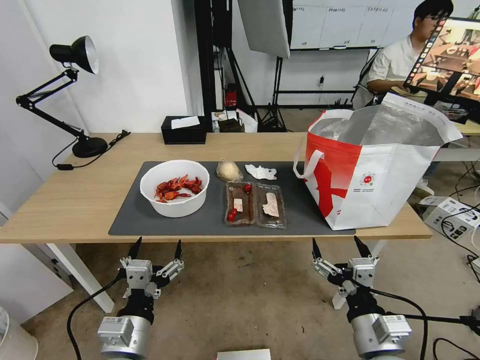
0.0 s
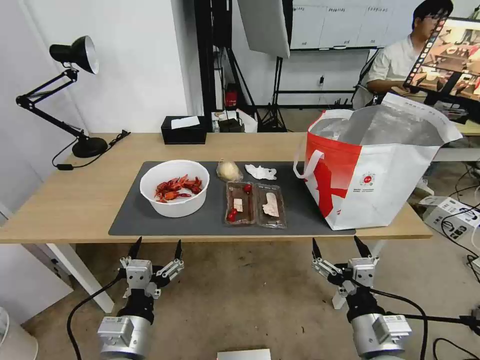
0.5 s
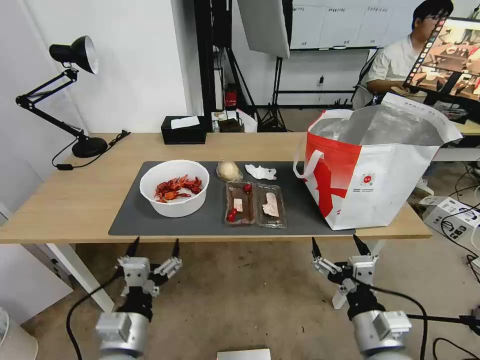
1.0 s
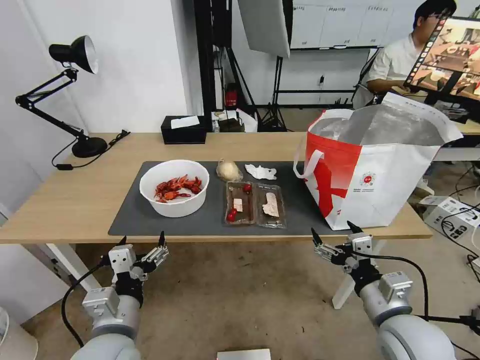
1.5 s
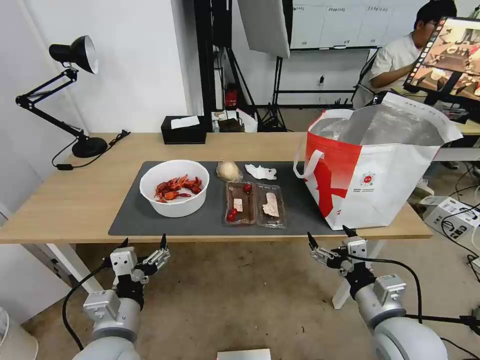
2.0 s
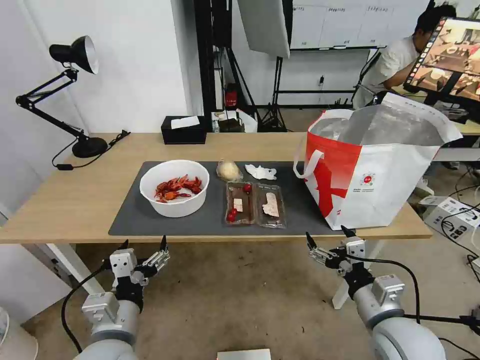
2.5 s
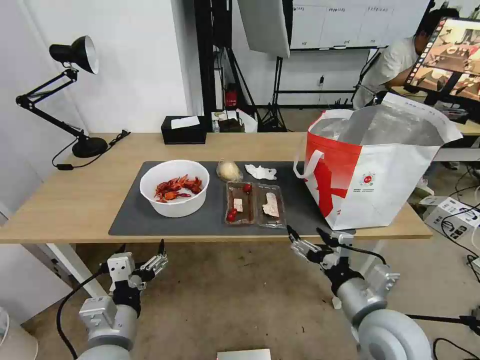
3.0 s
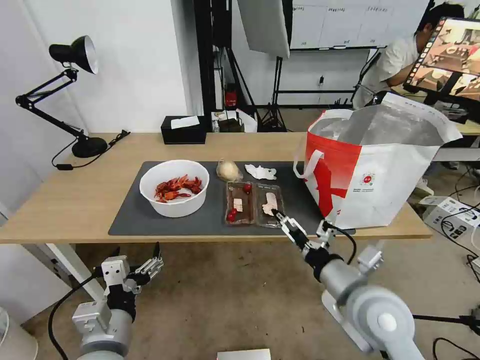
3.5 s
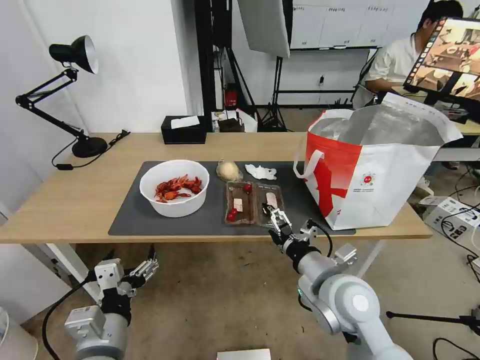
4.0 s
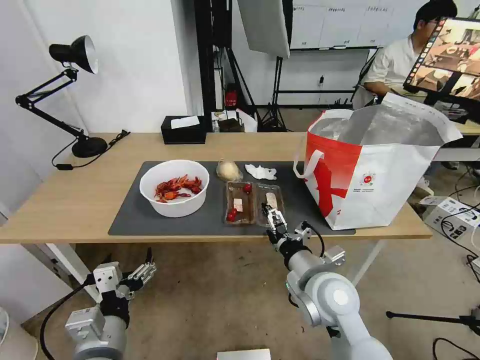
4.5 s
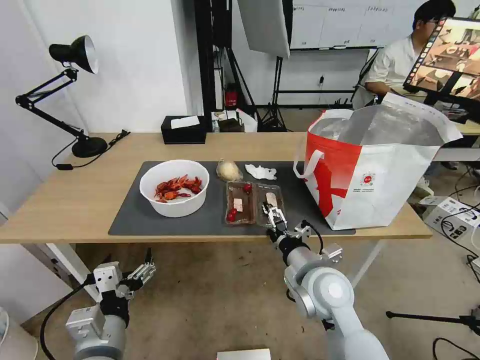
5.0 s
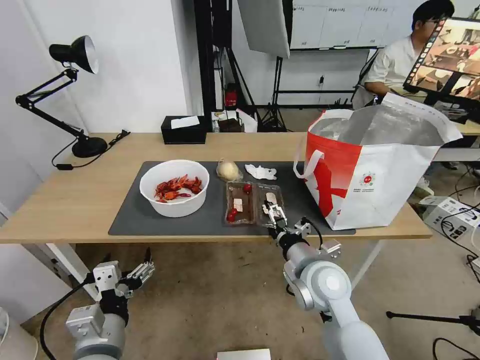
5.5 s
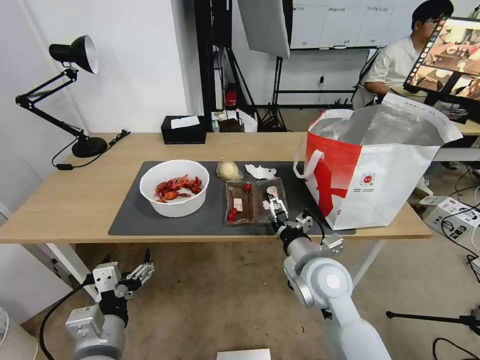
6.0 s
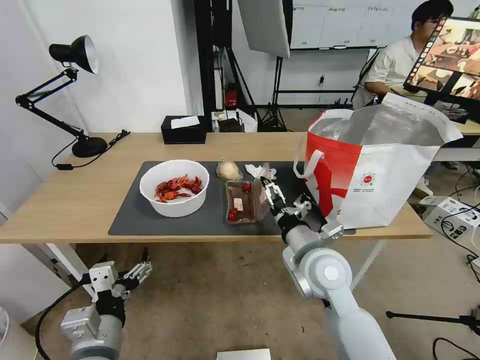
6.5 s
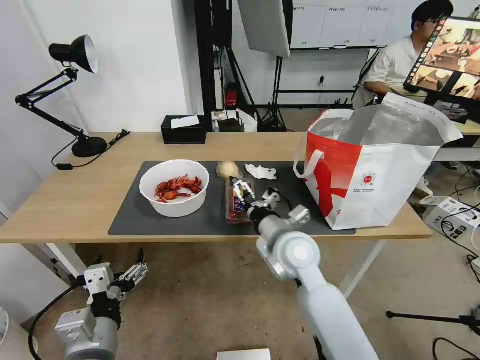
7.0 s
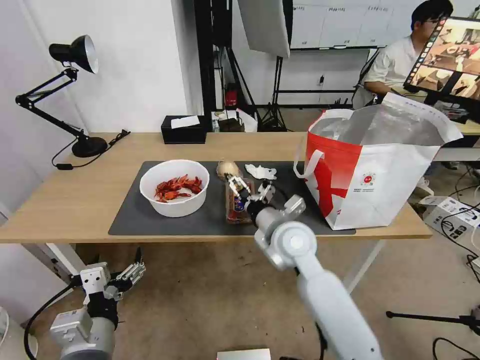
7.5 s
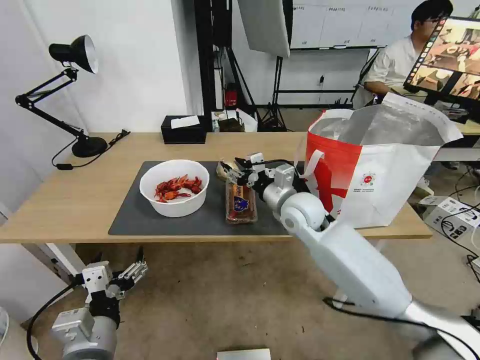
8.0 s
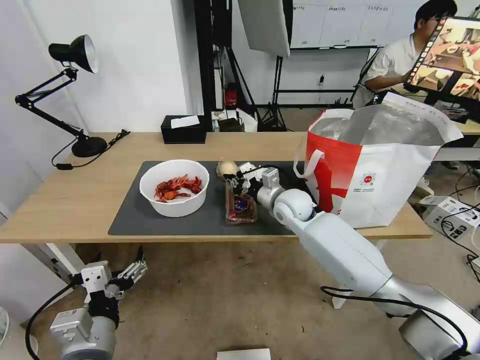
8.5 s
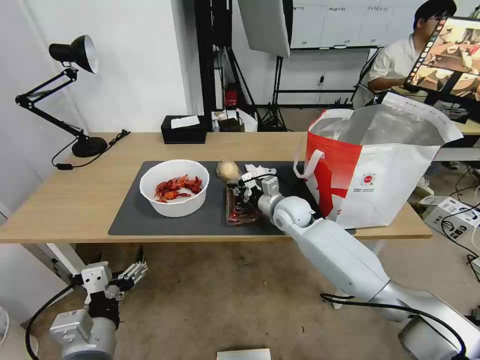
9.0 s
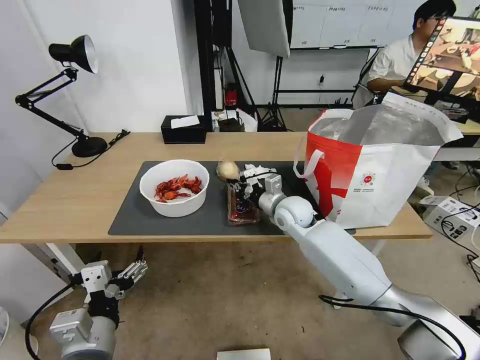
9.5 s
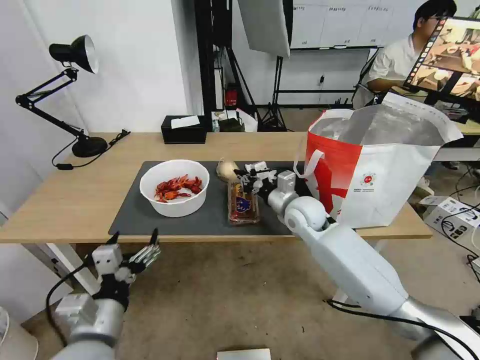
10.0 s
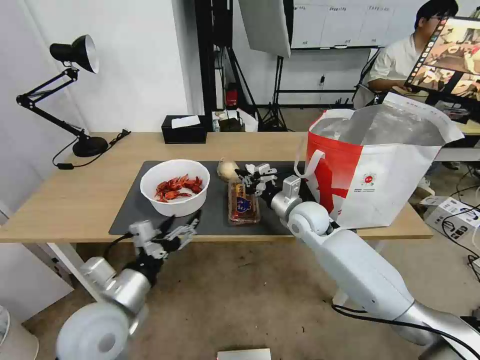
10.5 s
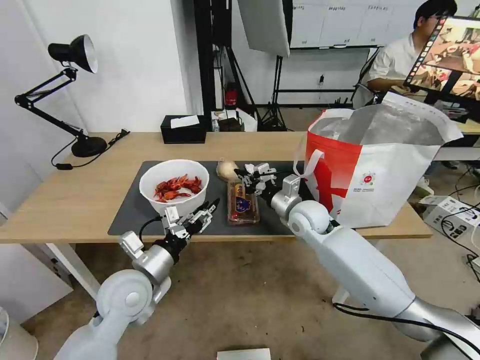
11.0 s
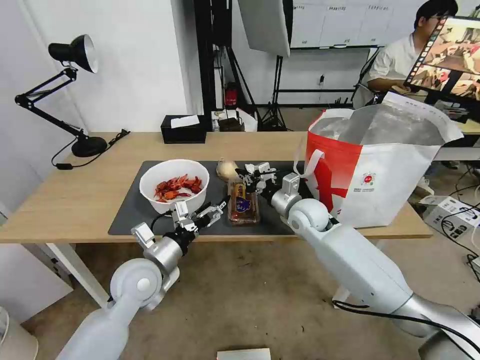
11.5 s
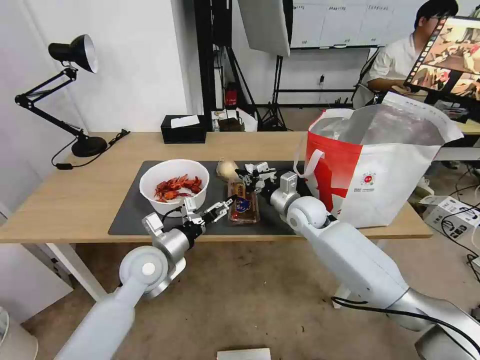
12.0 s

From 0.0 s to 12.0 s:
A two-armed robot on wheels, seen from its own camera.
Task of the whole recording: Pick up the trash from the table and place it into the takeout bag.
From 2.0 s to 4.0 s: The right gripper heads to the left and forward, covering roughly 10 cm.
From 4.0 s to 6.0 s: The grippers move only a little.
From 6.0 s to 8.0 s: The right gripper is displaced forward by roughly 15 cm, and closes up.
From 8.0 s to 10.0 s: The right gripper closes its fingers.
From 10.0 s to 12.0 s: The left gripper travels forward by about 20 cm, and closes, then reopens.

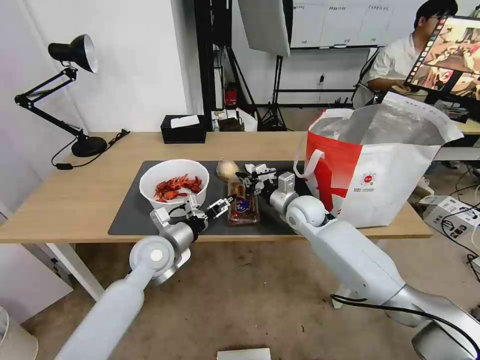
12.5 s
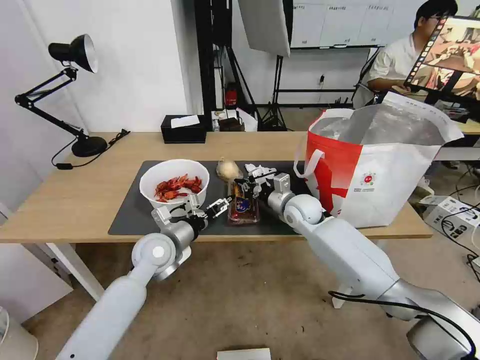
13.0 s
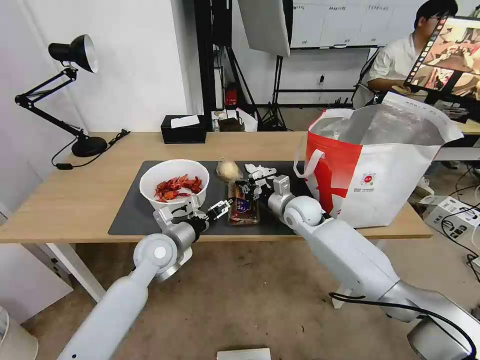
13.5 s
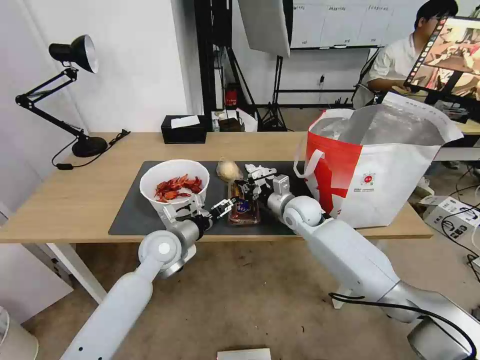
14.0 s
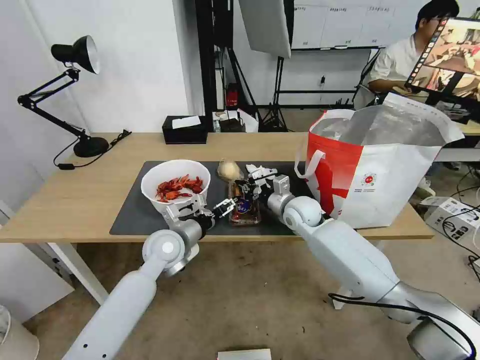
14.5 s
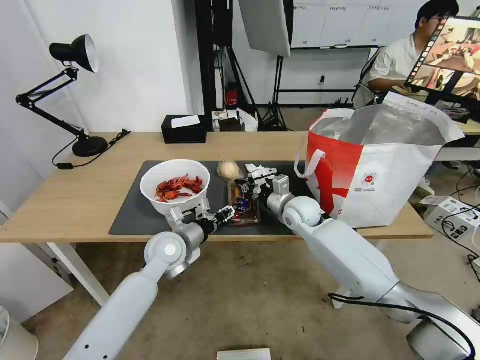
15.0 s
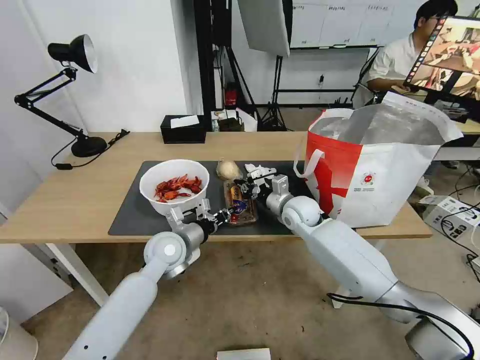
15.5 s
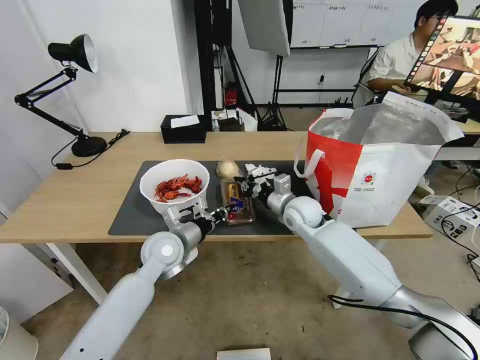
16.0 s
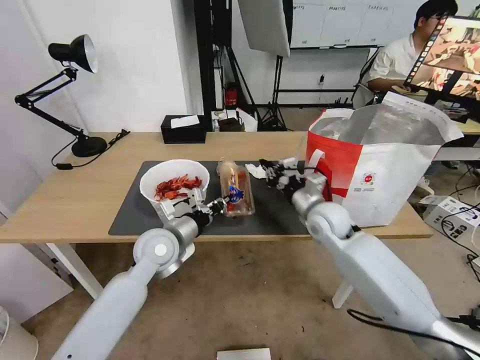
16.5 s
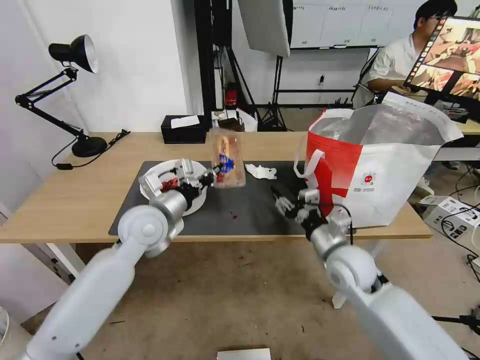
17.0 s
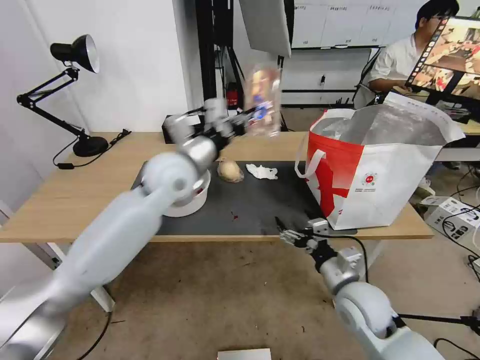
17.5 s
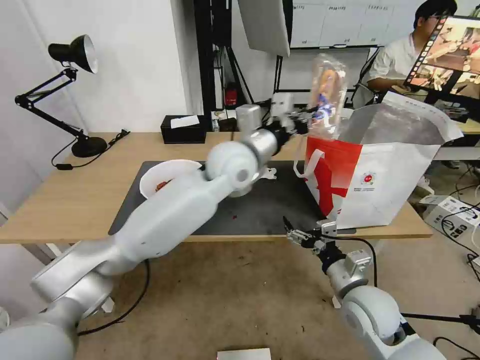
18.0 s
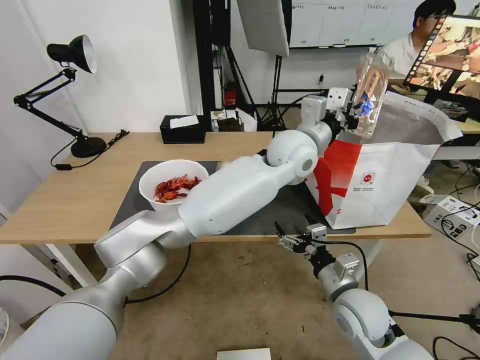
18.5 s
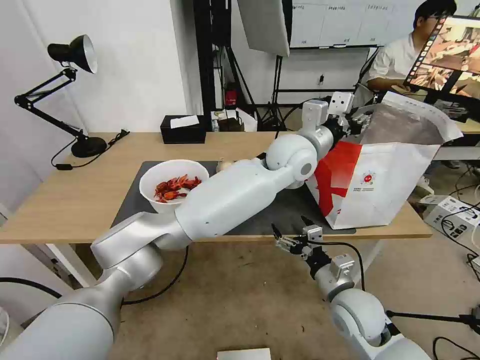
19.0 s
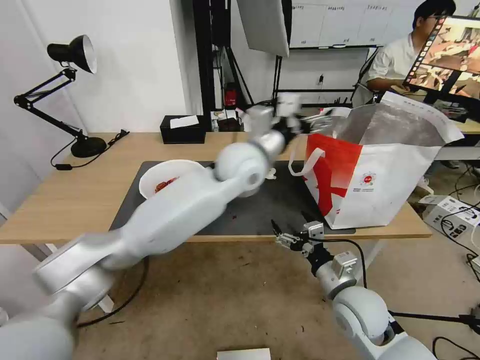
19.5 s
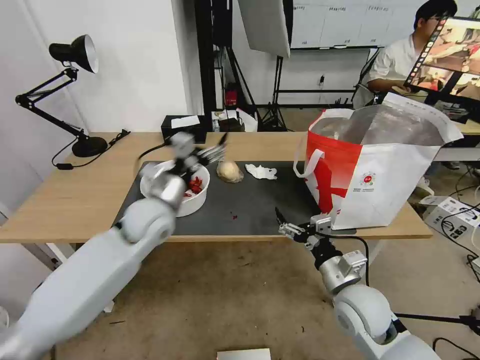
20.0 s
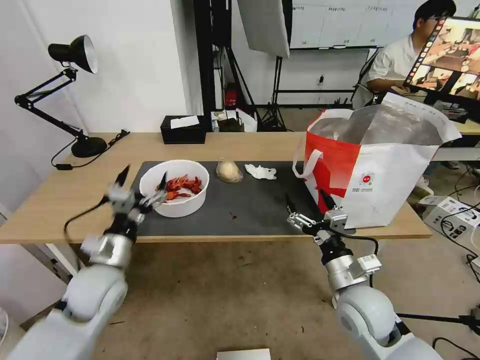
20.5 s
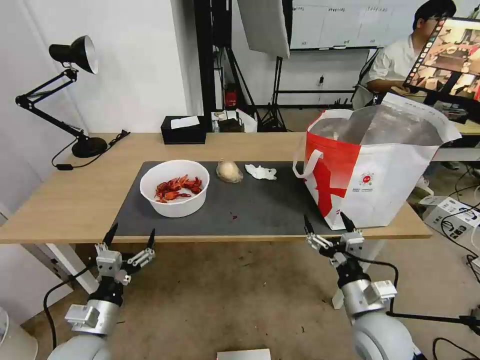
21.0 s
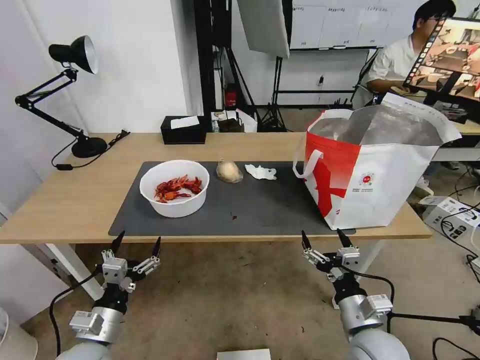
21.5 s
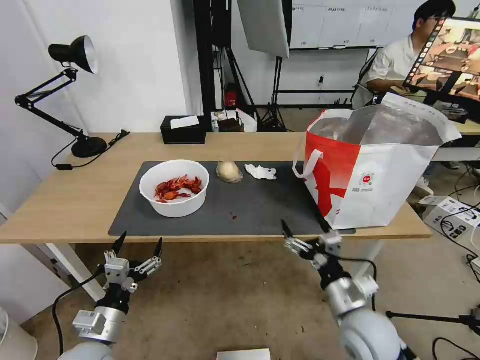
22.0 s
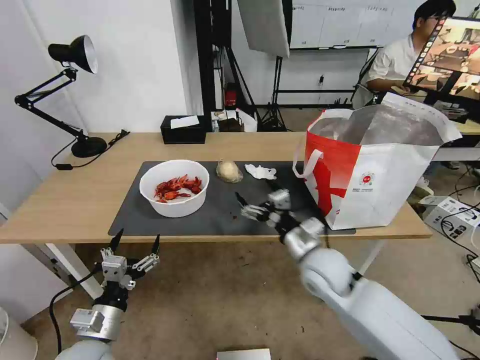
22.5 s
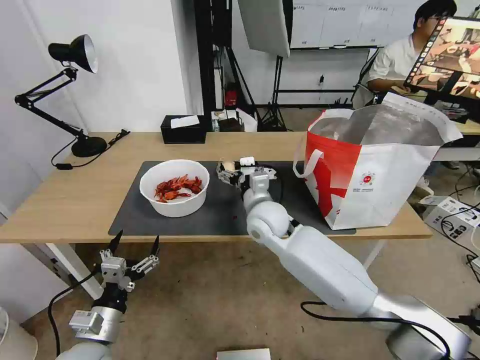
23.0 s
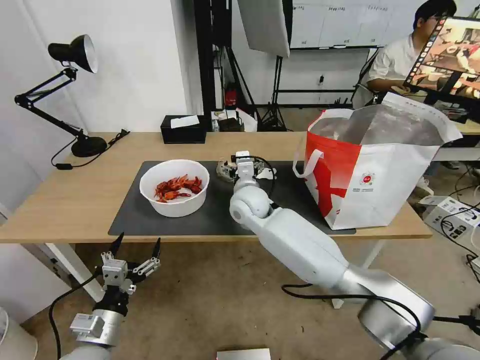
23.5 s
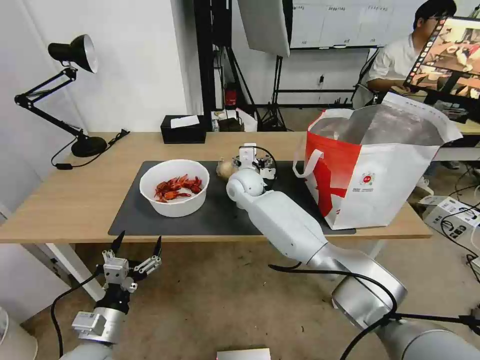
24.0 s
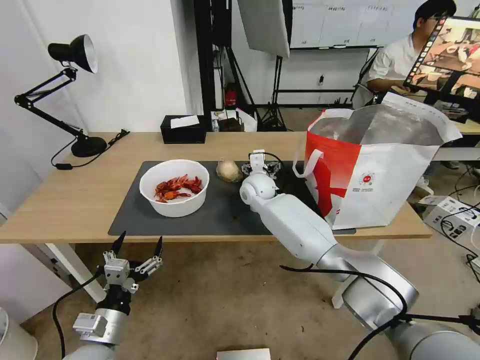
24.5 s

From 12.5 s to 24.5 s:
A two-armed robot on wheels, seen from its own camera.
Task of the whole recording: Pick up the trash from the table and place it into the takeout bag.
From 12.5 s to 14.5 s: The grippers make only small movements.
From 14.5 s to 16.5 s: The right gripper heads backward, covering approximately 5 cm. The left gripper closes its fingers.
From 16.5 s to 18.5 s: The right gripper travels backward by roughly 20 cm, and opens; the left gripper is displaced to the right and upward by approximately 35 cm.
From 18.5 s to 20.5 s: The left gripper is displaced to the left, backward and downward by roughly 50 cm, and opens its fingers.
From 20.5 s to 22.5 s: The right gripper is displaced forward and to the left by approximately 10 cm. The left gripper goes roughly 15 cm backward and downward.
From 22.5 s to 24.5 s: The right gripper goes approximately 30 cm forward and to the left.

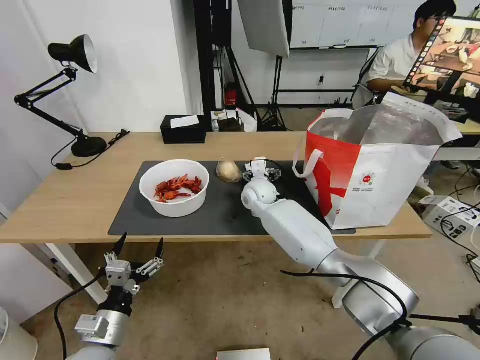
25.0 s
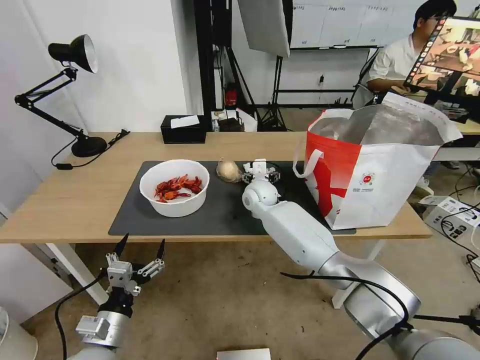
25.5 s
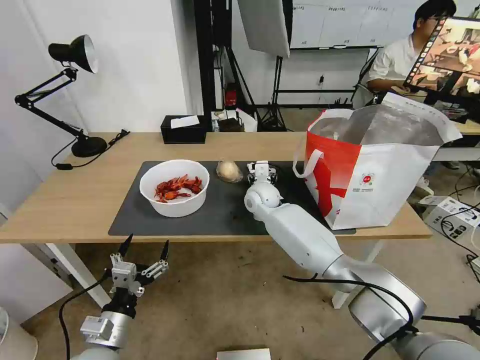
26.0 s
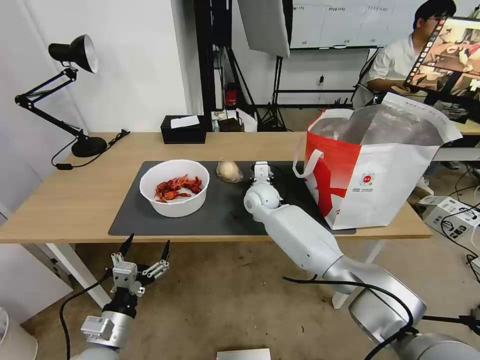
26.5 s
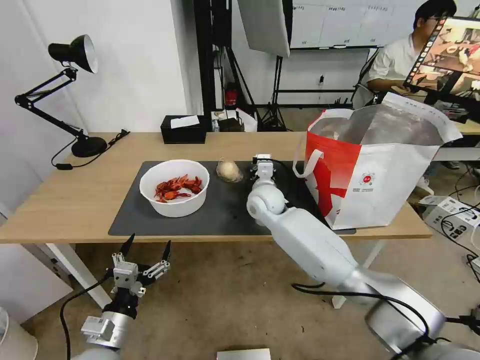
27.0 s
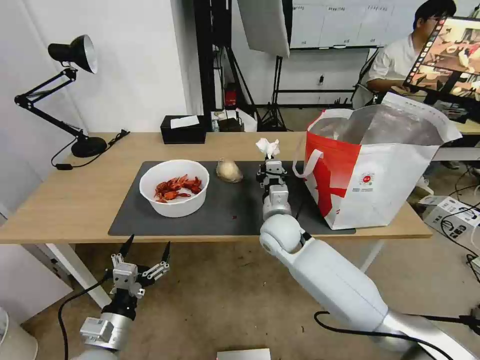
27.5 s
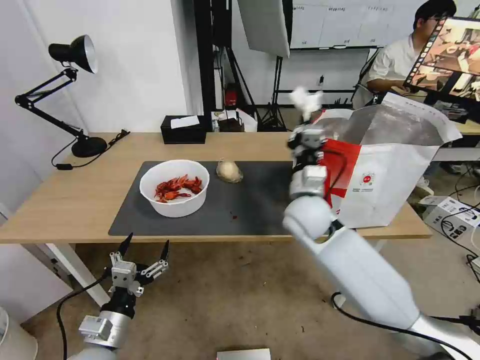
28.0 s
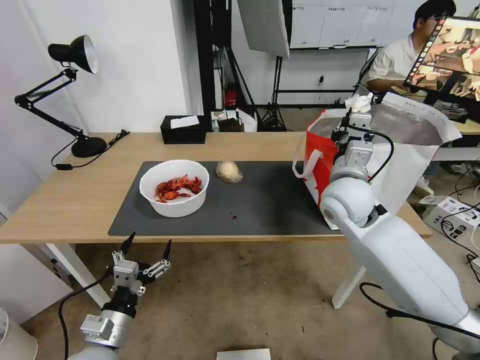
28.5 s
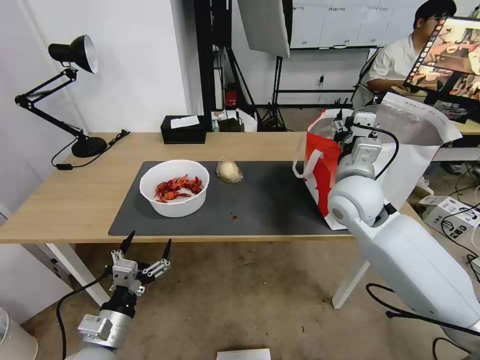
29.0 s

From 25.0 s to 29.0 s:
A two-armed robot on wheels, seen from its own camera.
Task of the whole recording: Pick up the trash from the table and place it into the takeout bag.
From 25.0 s to 27.0 s: The right gripper shifts roughly 5 cm backward, and closes up.
From 27.0 s to 29.0 s: The right gripper shifts about 20 cm to the right, upward and backward, and opens.
